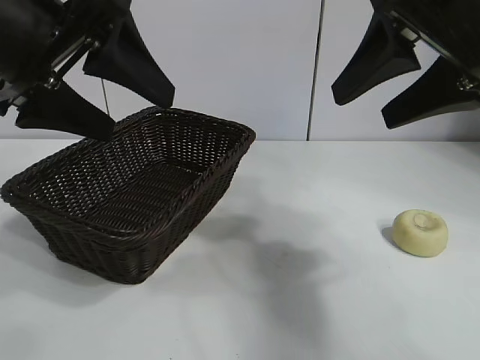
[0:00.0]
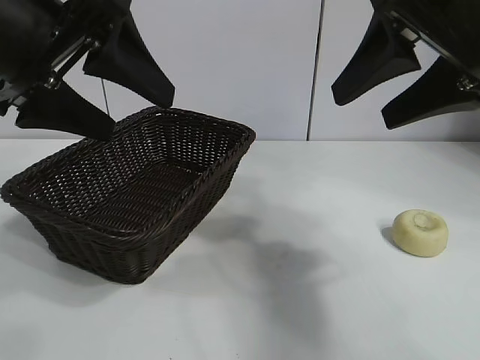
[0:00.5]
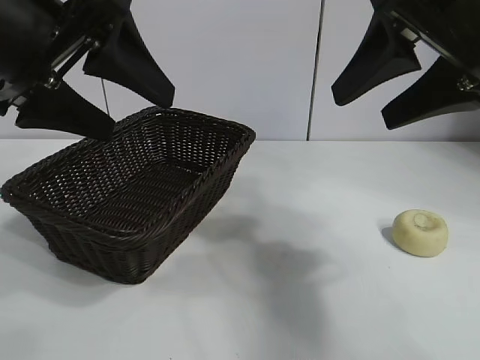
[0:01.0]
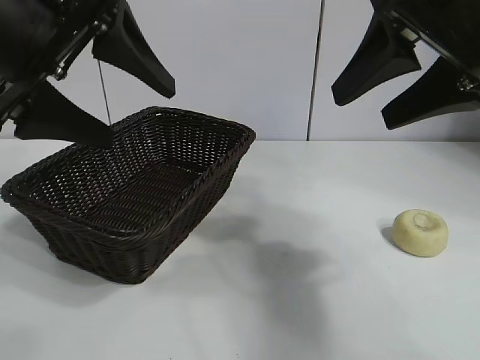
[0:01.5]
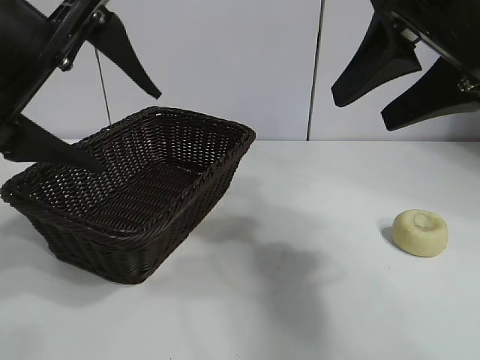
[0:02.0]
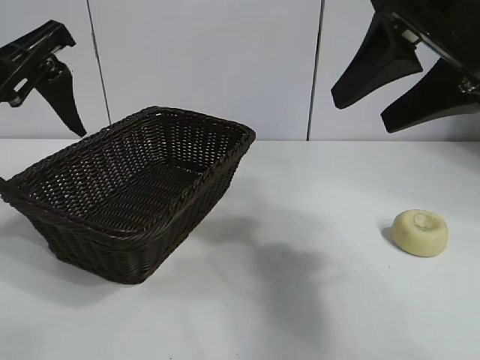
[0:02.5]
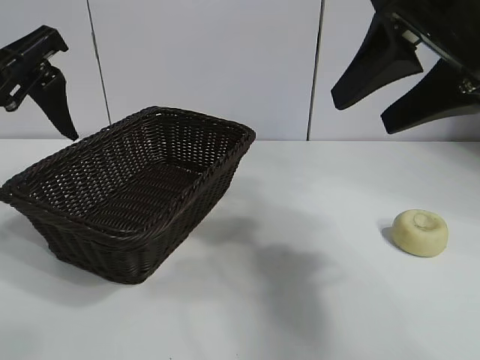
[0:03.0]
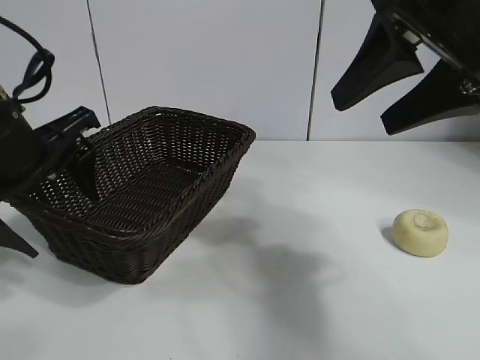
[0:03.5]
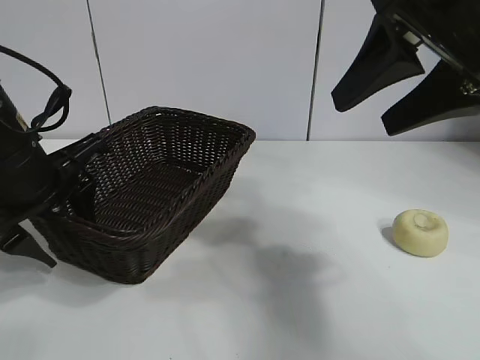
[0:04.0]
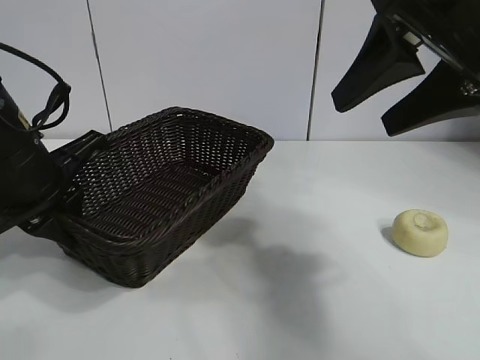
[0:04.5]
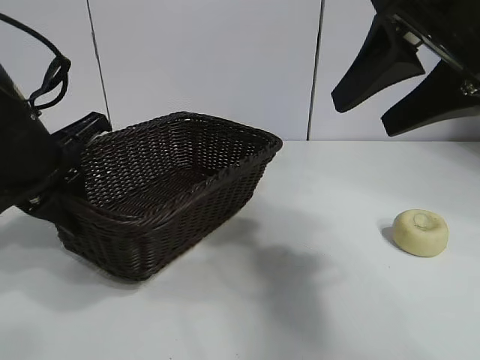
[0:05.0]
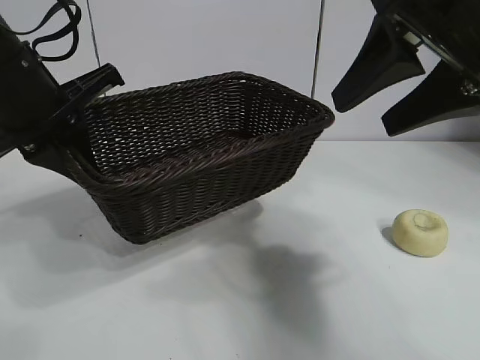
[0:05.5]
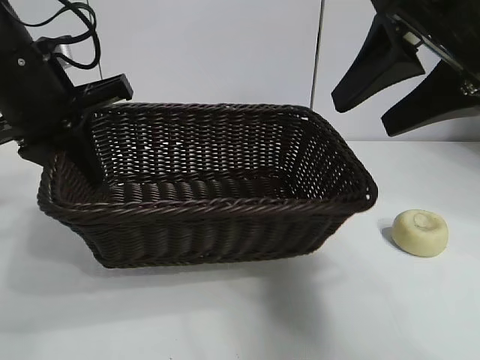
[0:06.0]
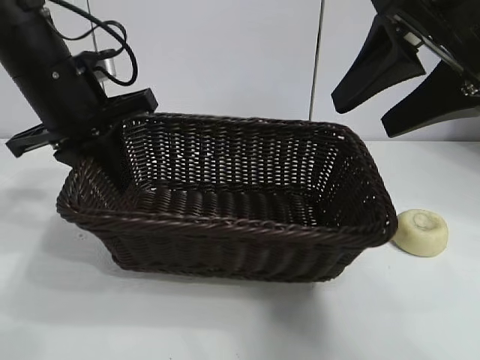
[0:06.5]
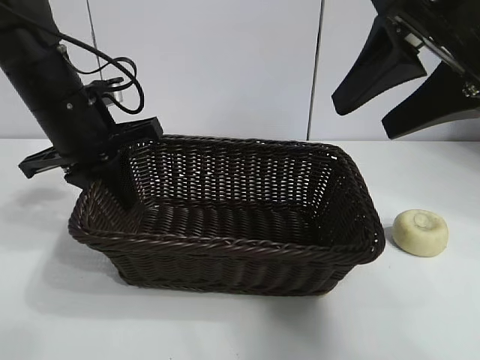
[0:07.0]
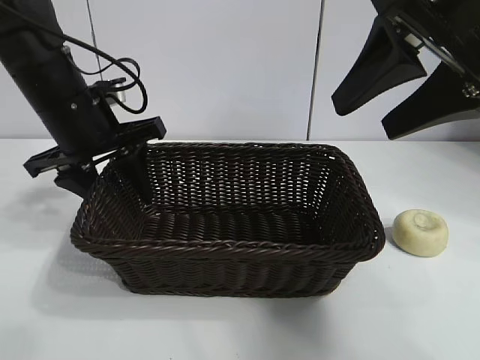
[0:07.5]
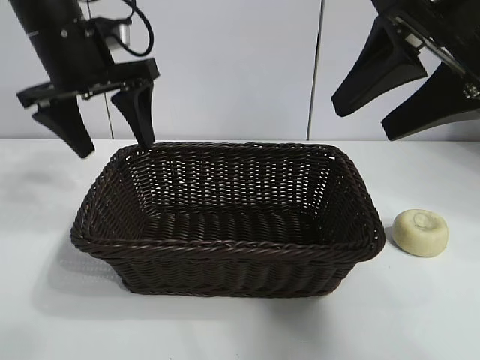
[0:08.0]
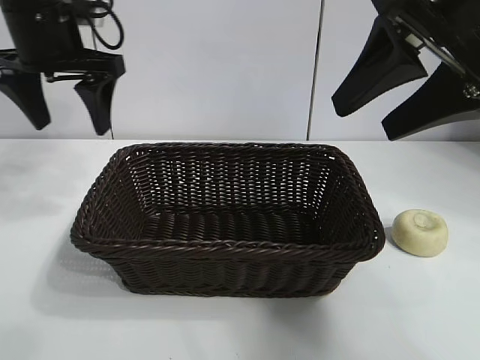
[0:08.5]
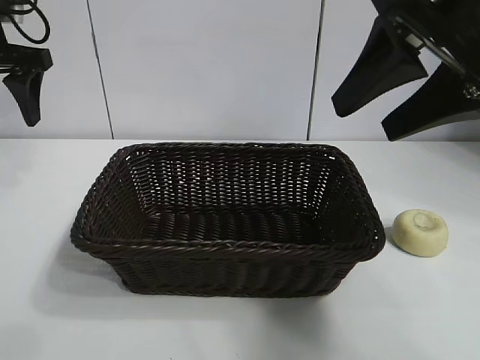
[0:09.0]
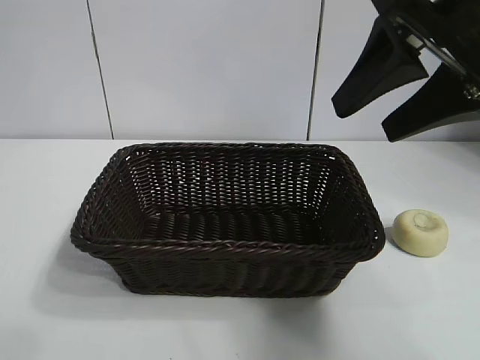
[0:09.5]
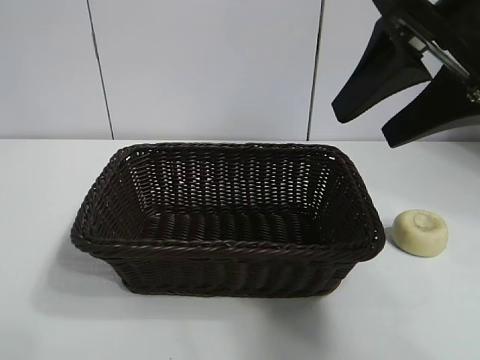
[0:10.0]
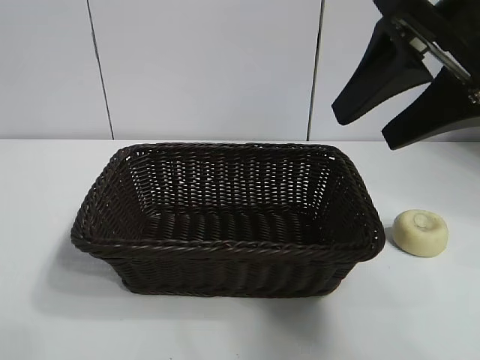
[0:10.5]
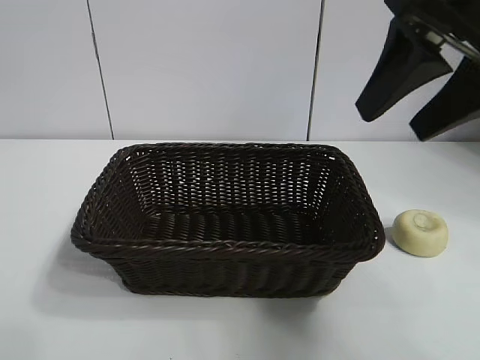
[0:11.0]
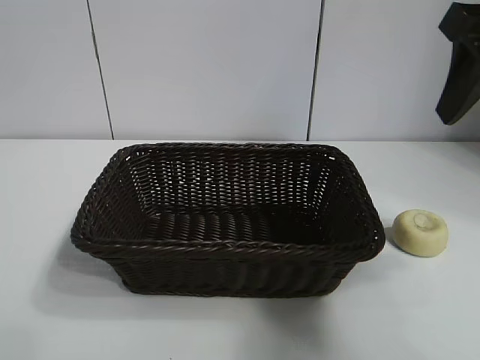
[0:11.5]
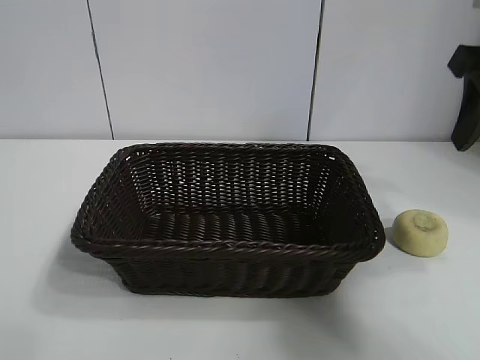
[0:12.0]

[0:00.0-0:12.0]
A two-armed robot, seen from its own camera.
Task of the whole recording: pick up the egg yolk pastry and put it into the basket.
Step, 0:01.5 to 0:04.5: Grasp the basket with left gripper.
Step, 0:05.0 to 0:07.5: Place the basket in the center of view with left gripper.

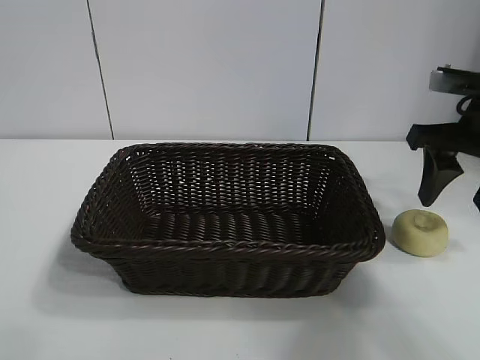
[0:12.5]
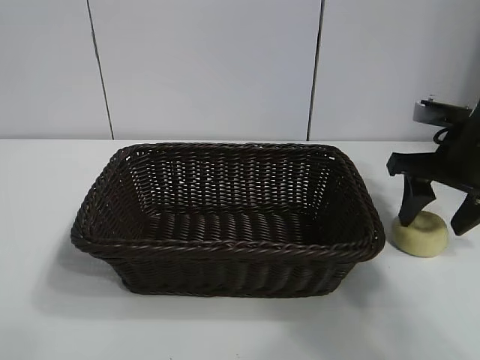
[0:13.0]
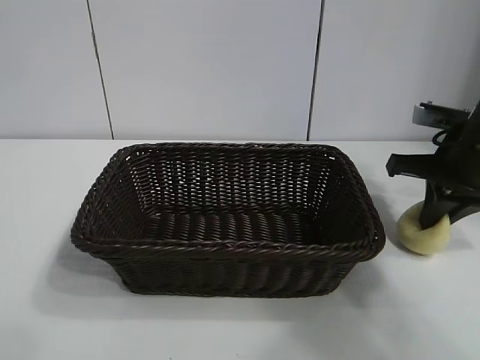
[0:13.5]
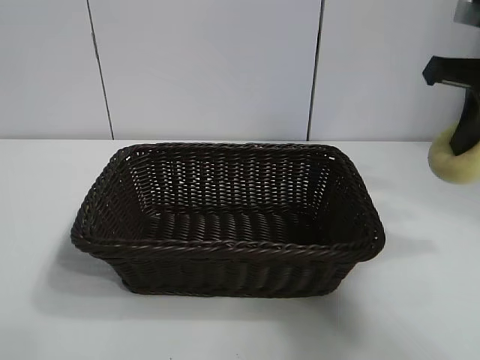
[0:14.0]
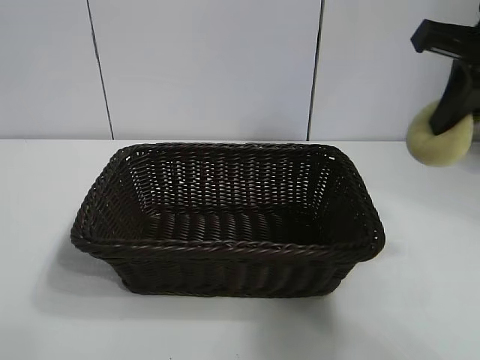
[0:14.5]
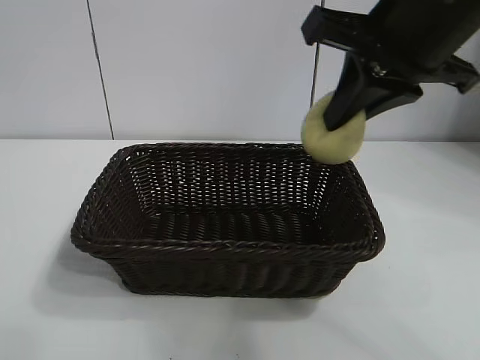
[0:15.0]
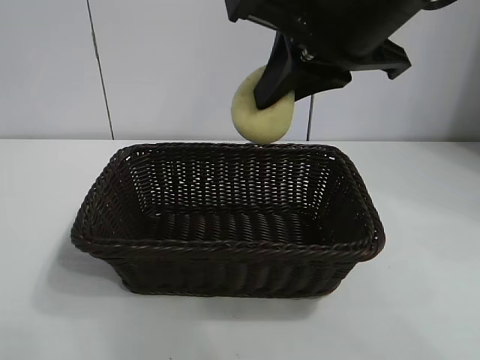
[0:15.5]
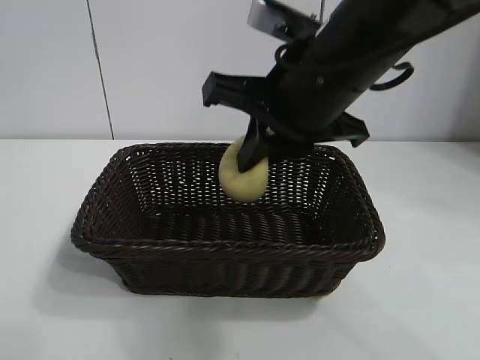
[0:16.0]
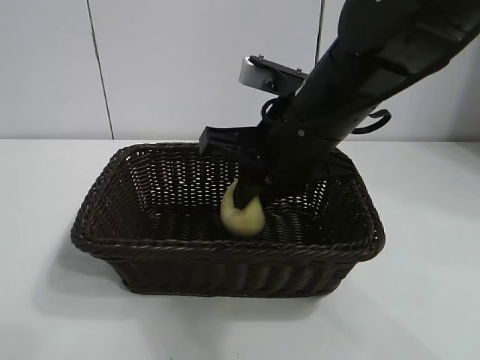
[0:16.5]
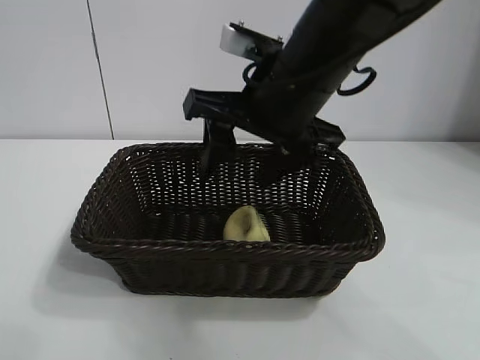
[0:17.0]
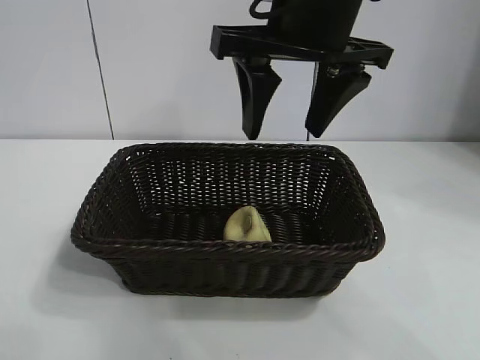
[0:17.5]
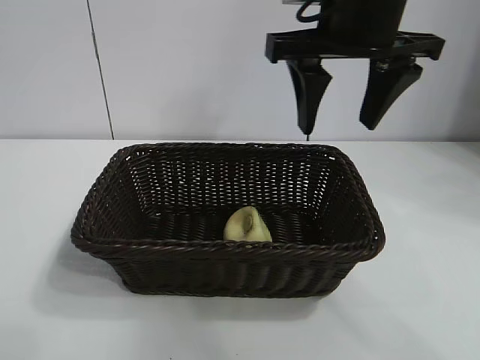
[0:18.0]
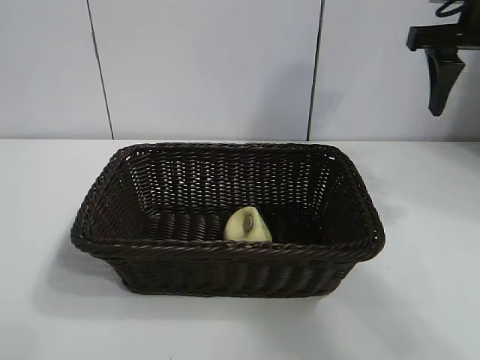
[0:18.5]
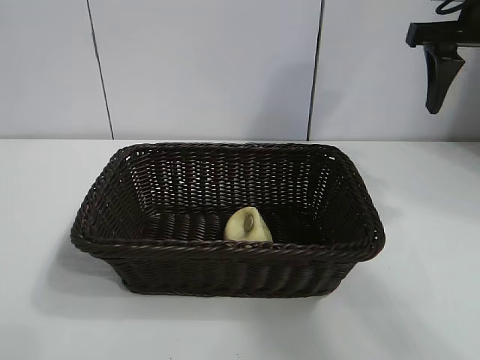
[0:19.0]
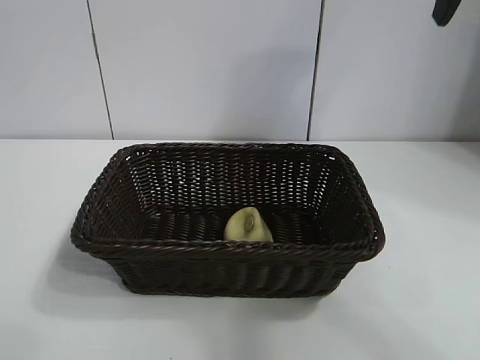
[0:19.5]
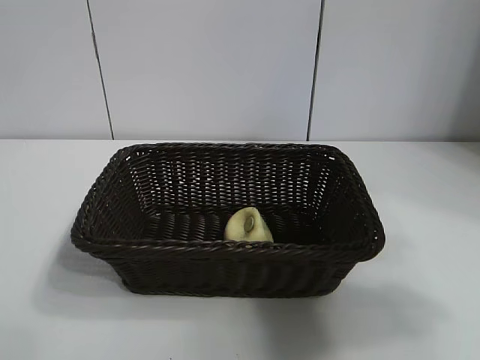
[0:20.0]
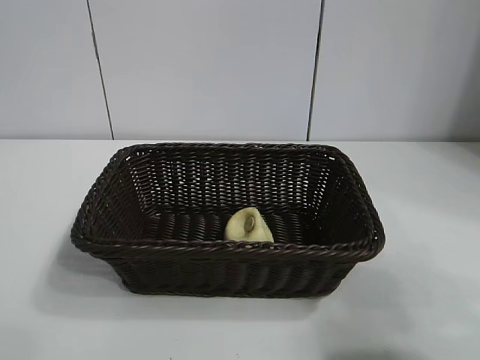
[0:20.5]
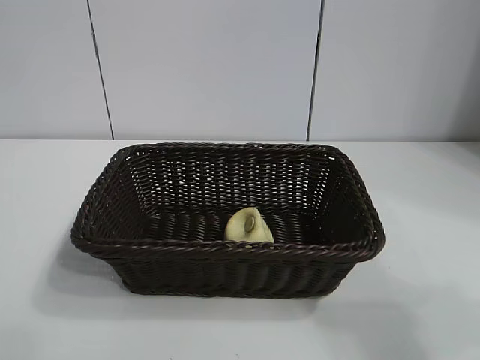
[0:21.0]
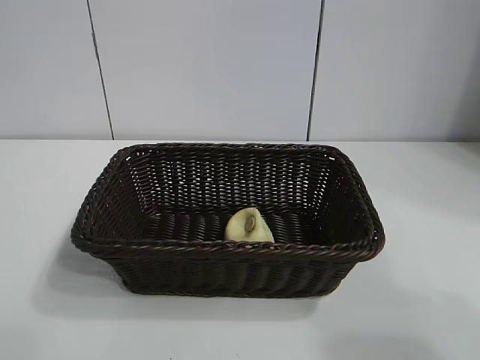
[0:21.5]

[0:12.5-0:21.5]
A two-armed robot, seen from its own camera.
Task of the whole recording: pick up the egg yolk pastry and put it into the basket.
Step, 0:13.5 to 0:16.5: Place the egg yolk pastry in the basket with right gripper.
